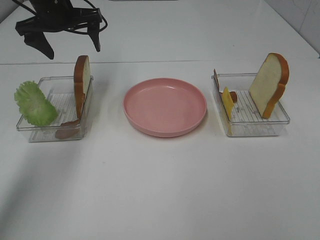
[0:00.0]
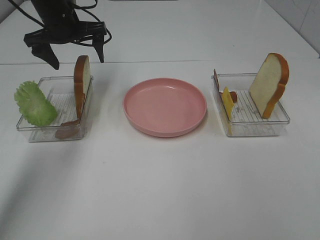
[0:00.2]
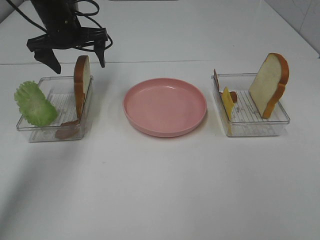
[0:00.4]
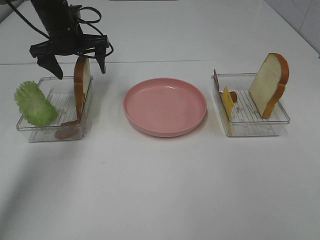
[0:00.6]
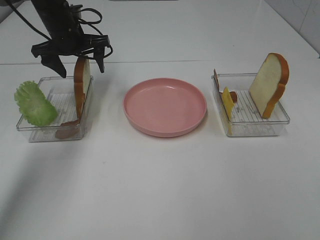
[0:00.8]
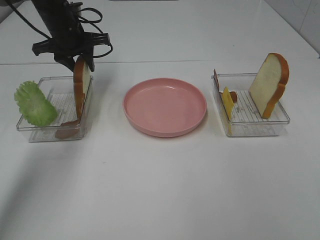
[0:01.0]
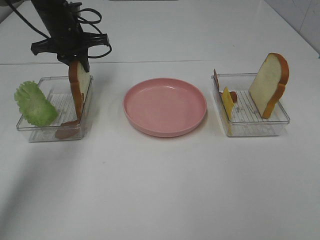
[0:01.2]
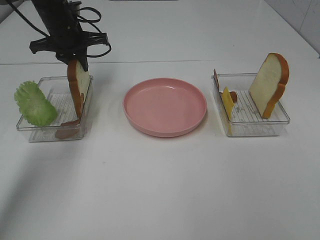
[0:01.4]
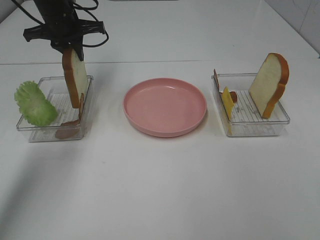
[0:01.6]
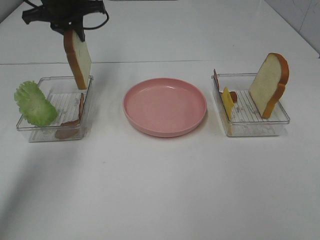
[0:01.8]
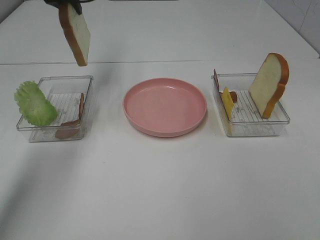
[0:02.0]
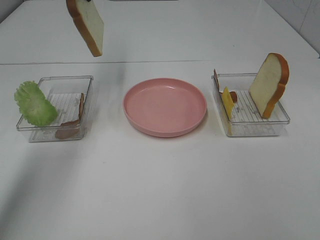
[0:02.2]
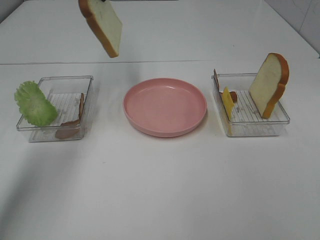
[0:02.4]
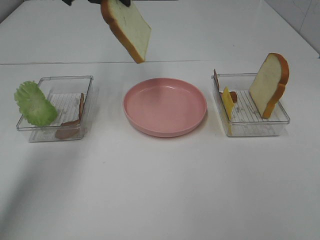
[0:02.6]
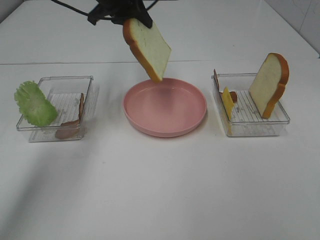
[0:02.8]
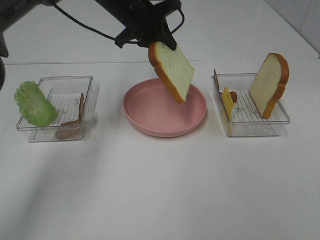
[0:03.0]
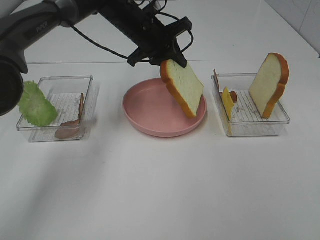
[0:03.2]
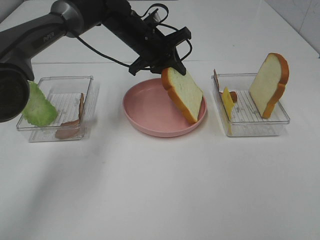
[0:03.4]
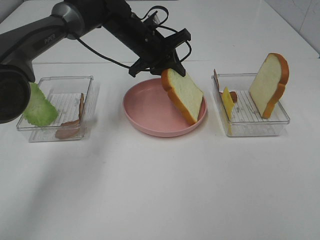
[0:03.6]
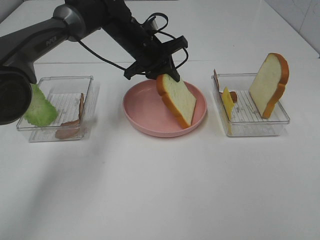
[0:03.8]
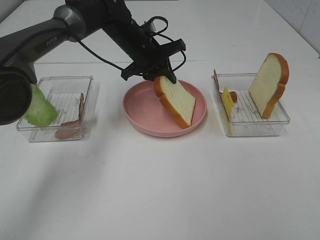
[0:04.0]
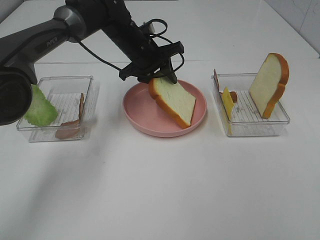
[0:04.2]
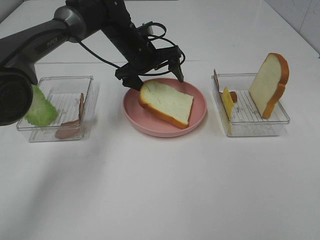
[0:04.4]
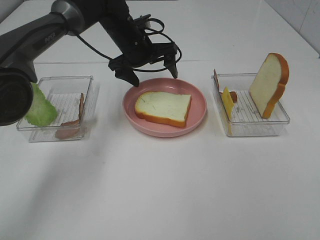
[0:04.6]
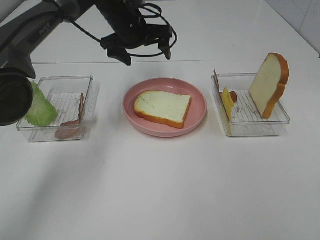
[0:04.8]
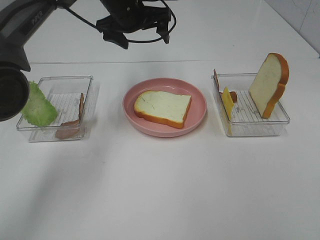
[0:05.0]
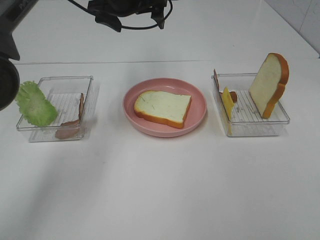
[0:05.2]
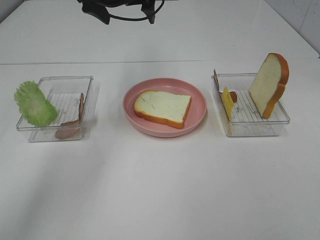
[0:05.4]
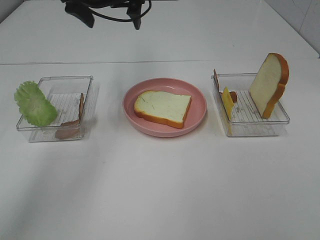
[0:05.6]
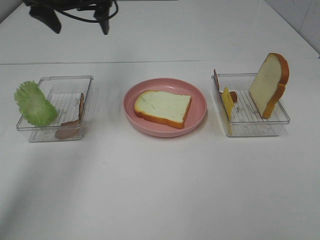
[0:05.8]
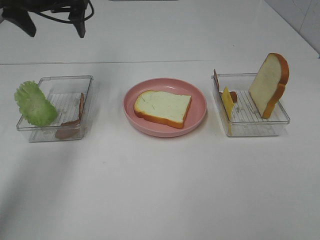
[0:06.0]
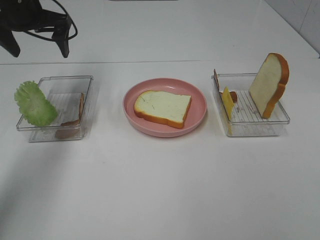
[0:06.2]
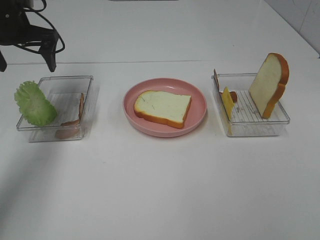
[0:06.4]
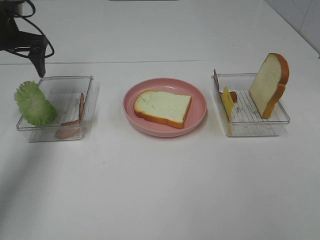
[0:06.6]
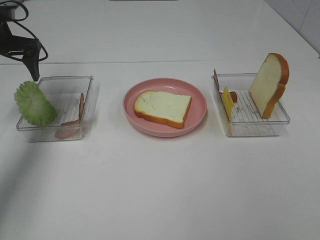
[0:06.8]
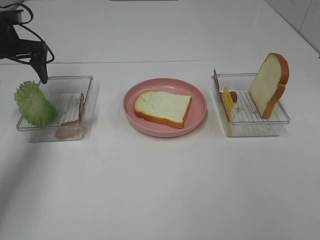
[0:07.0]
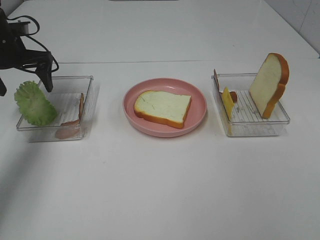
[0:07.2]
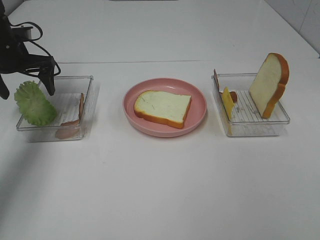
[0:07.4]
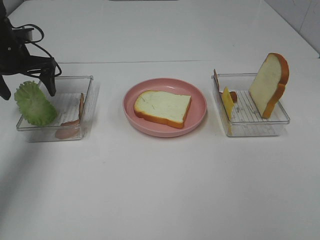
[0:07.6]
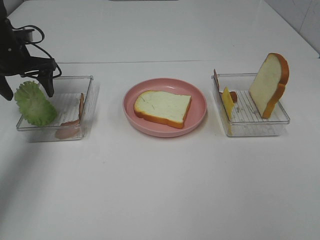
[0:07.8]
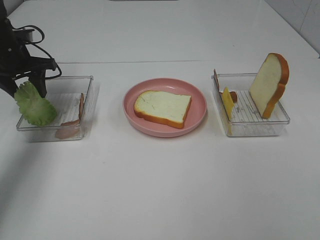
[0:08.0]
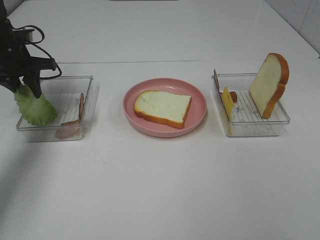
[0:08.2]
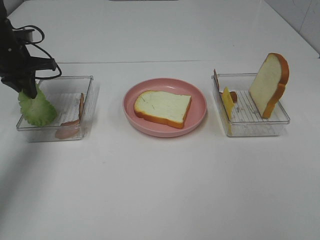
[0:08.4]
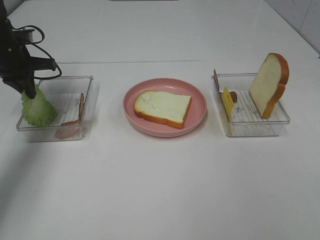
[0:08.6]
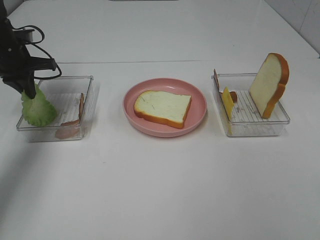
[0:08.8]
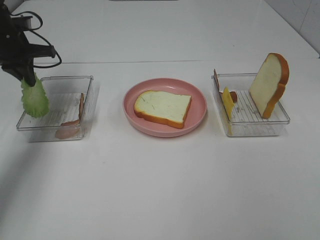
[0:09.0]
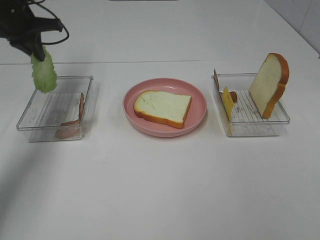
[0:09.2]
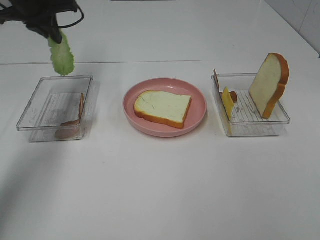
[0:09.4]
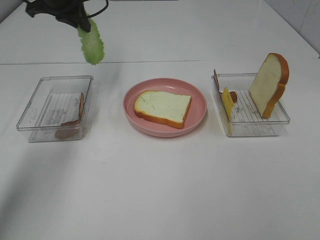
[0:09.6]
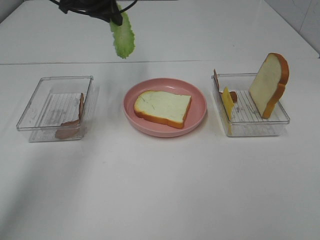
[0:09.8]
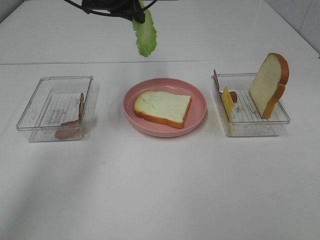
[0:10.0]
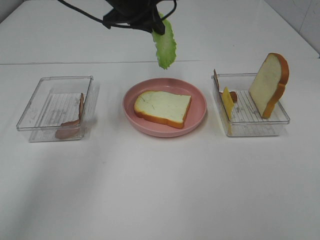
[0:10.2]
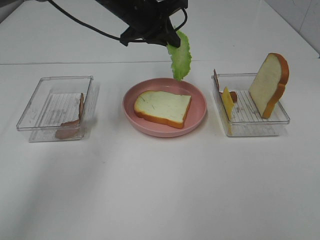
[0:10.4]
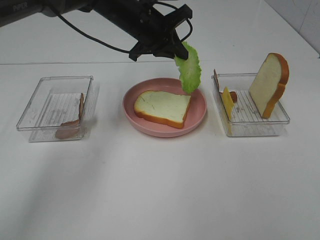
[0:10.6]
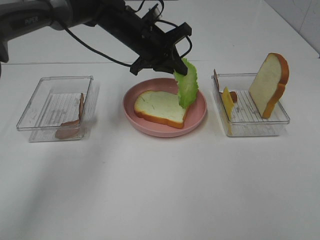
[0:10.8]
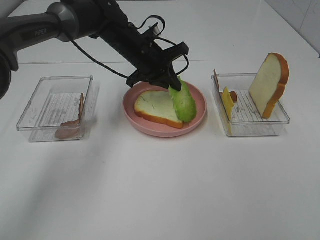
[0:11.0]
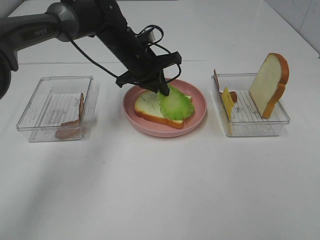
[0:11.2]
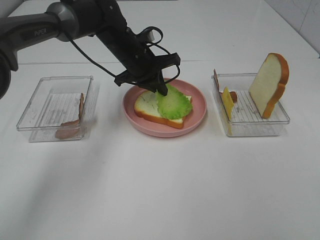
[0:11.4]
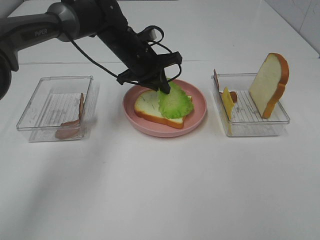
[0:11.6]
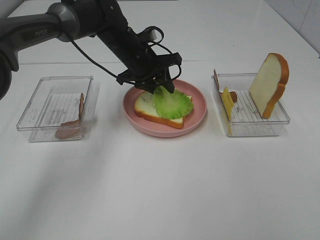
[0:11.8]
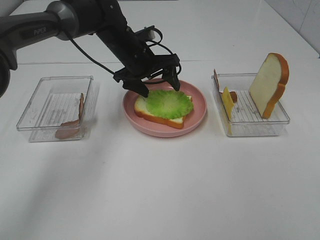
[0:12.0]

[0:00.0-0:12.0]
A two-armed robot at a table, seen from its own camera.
Task of the whole recording: Make sandwiches.
Step, 0:01.6 to 0:04.6: Left hand:place the bread slice on the plate.
Step, 0:04.8 to 0:08.4: Left hand:grab the lettuce slice.
0:00.0 to 0:01.6: The left gripper closes its fingers.
0:01.6 to 0:03.0: The left gripper heads to the right, covering about 15 cm.
0:03.0 to 0:04.4: The left gripper travels downward by approximately 10 cm, and opens its fingers.
0:04.4 to 0:06.0: The left gripper heads to the left and upward, covering some 20 cm.
0:06.0 to 0:07.6: The left gripper goes roughly 15 cm downward and to the left.
0:07.6 to 0:09.0: The left gripper closes up.
0:09.0 to 0:10.4: The left gripper moves to the right, approximately 25 cm.
0:10.4 to 0:12.0: The left gripper goes approximately 10 cm downward, and opens.

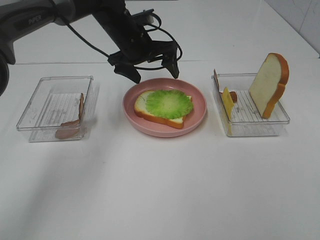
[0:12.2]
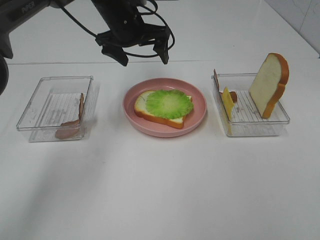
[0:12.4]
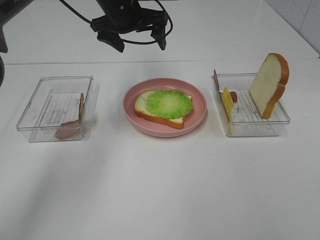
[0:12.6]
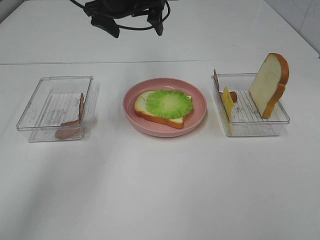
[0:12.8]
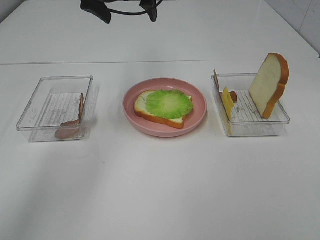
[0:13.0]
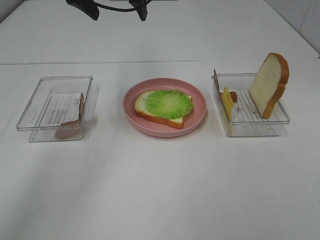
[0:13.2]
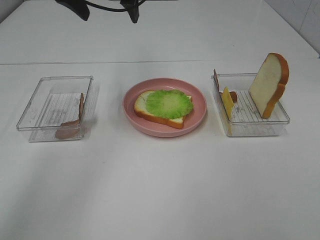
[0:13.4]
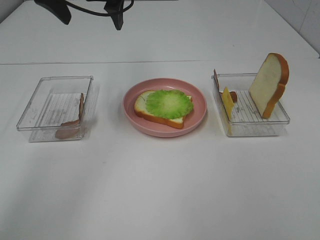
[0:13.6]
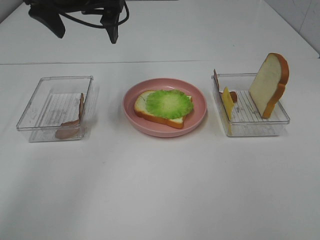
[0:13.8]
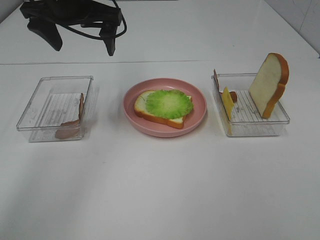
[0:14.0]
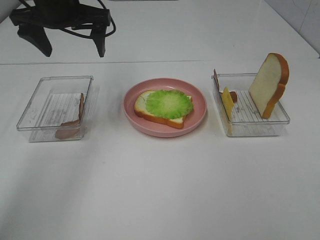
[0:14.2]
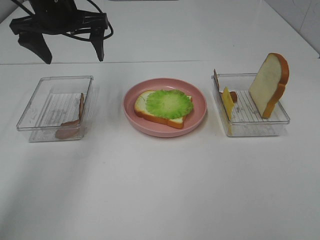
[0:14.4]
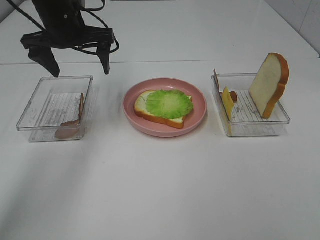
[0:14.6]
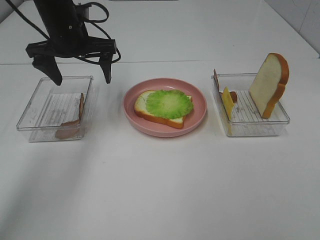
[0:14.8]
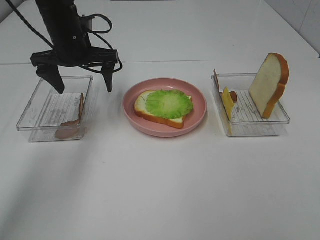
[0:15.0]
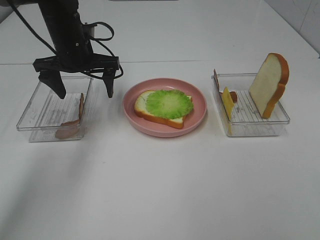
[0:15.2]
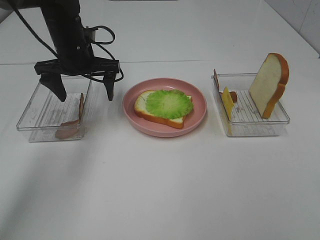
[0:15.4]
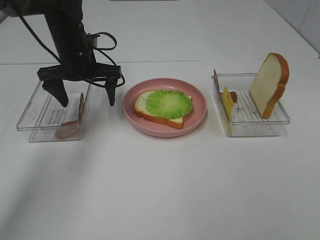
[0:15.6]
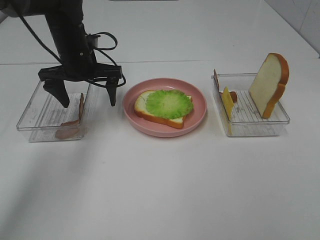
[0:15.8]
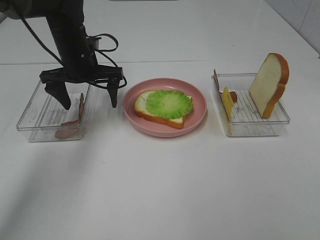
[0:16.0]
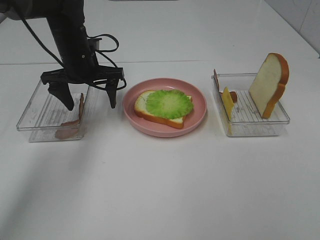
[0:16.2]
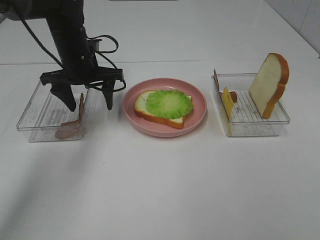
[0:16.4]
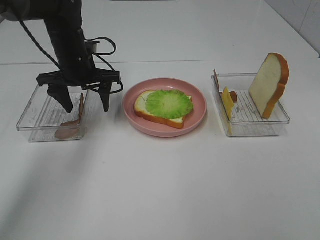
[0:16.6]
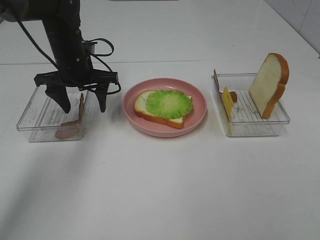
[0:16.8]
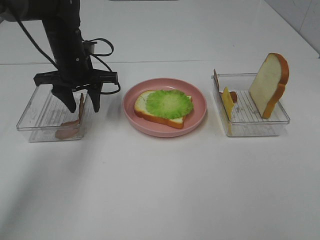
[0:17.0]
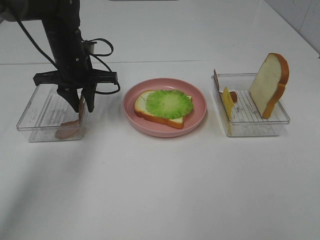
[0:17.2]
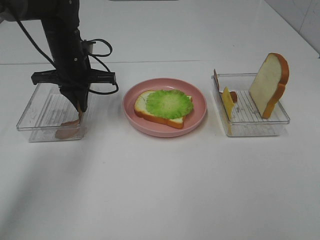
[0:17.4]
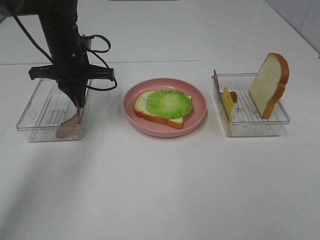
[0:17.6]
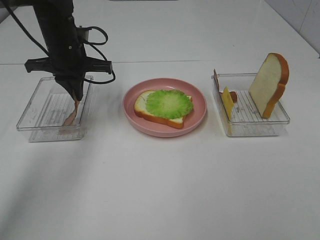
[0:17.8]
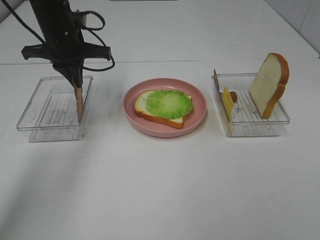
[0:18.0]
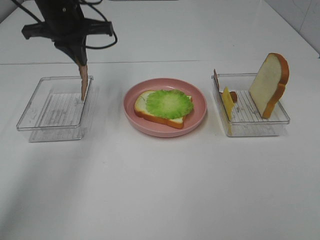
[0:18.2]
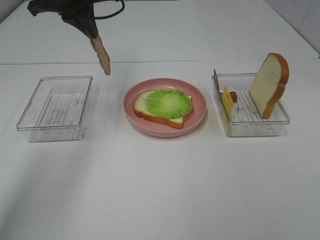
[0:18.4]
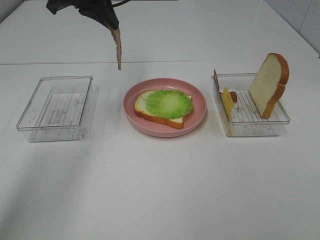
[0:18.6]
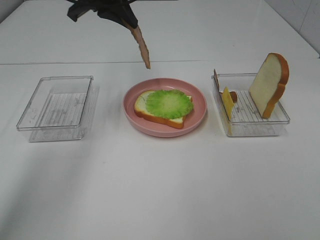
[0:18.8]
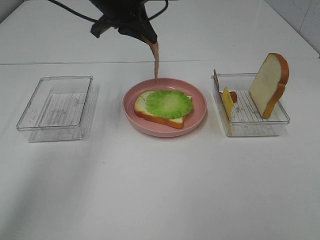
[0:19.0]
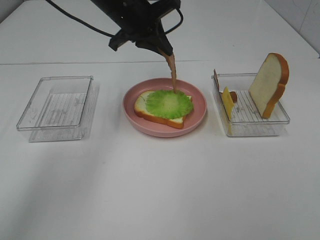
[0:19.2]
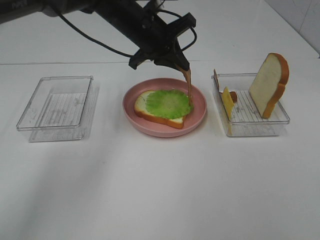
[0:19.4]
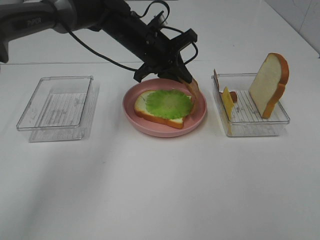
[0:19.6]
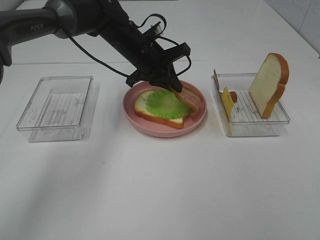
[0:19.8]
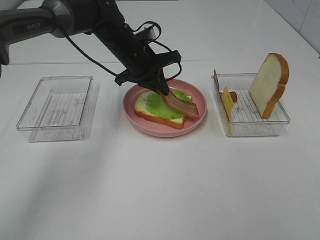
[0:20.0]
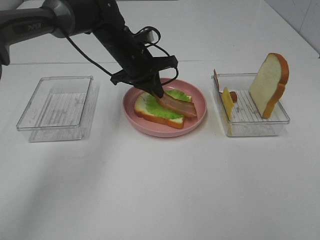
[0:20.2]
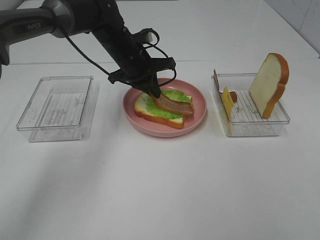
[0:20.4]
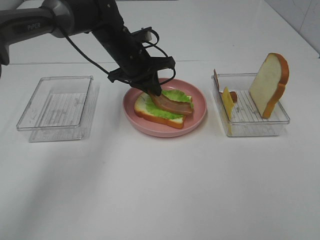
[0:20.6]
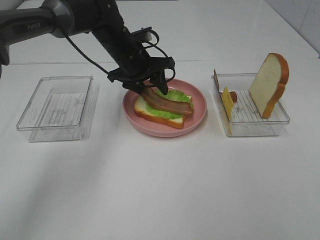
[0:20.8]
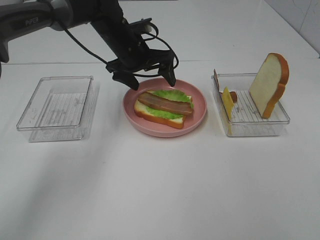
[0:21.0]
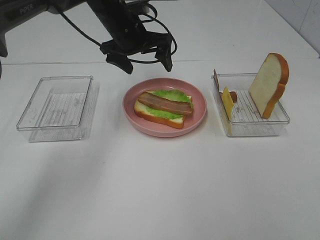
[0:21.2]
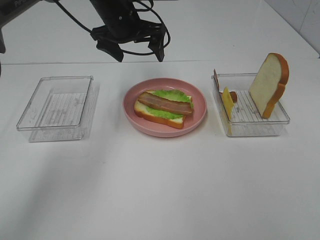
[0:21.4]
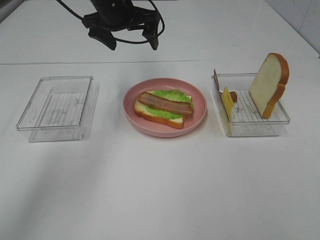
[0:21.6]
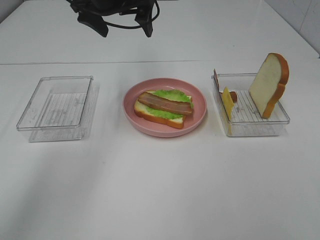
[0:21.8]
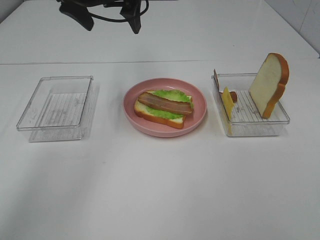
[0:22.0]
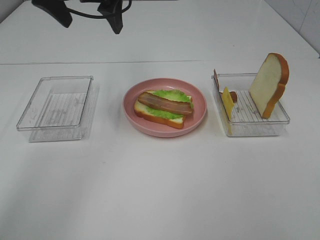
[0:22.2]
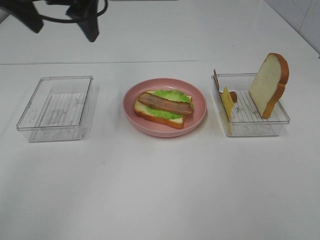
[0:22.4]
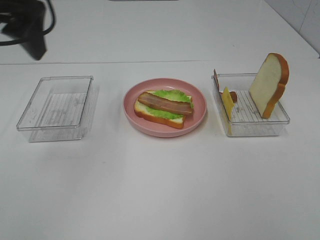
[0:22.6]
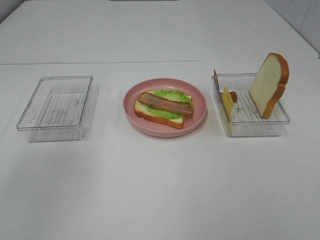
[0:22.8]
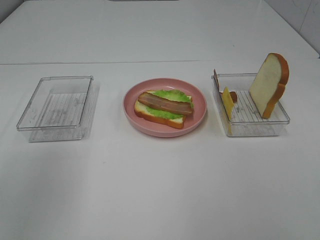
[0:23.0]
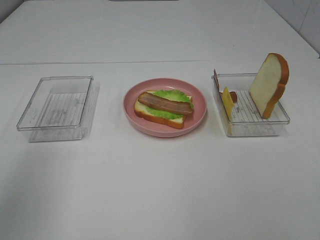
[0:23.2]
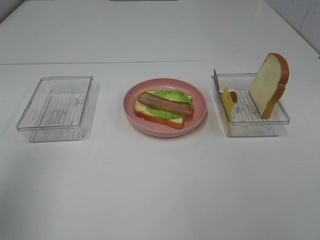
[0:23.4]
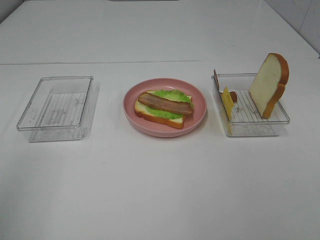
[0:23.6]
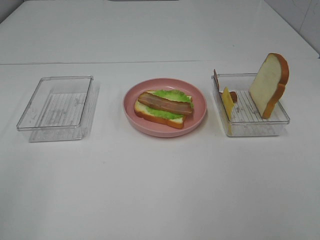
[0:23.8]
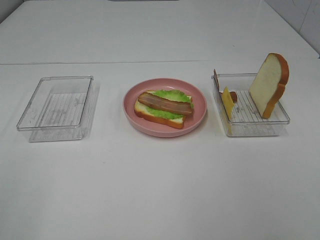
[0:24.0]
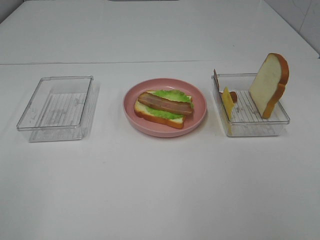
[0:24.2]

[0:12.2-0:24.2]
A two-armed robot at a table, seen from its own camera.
Task of the whole recording: Make sandwiches.
Step, 0:12.2 to 0:17.4: Left hand:grab the bacon.
Step, 0:17.6 to 0:21.0: Left hand:place bacon on lettuce slice.
0:12.2 to 0:13.8: The left gripper moves upward, to the left and backward, some 15 cm.
0:13.8 to 0:15.2: The left gripper shifts some 10 cm downward.
0:15.2 to 0:16.6: The grippers move only a little.
0:16.6 to 0:18.2: The left gripper shifts approximately 10 cm upward, and closes its fingers.
0:18.2 to 0:19.8: The left gripper travels to the right and downward by roughly 15 cm.
0:19.8 to 0:21.2: The left gripper changes place by approximately 5 cm, and opens its fingers.
0:21.2 to 0:22.6: The left gripper is displaced backward, upward and to the left by some 30 cm.
0:22.6 to 0:24.2: The left gripper shifts about 25 cm backward and to the left.
